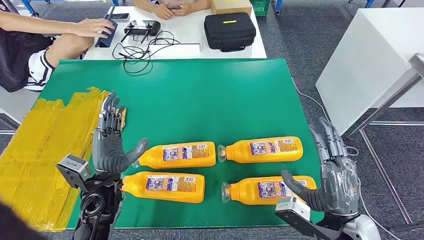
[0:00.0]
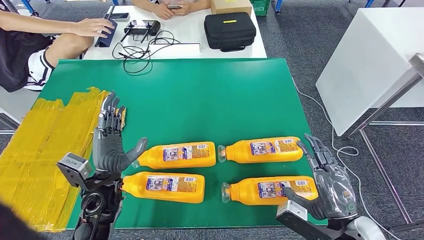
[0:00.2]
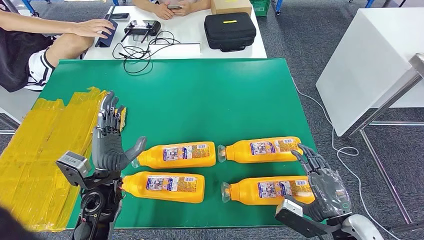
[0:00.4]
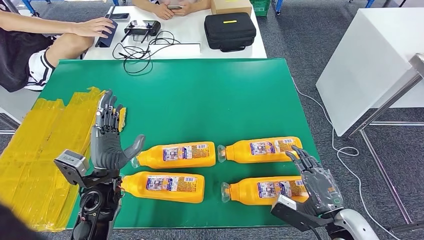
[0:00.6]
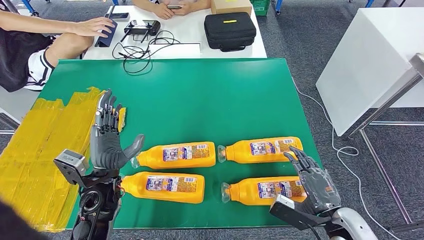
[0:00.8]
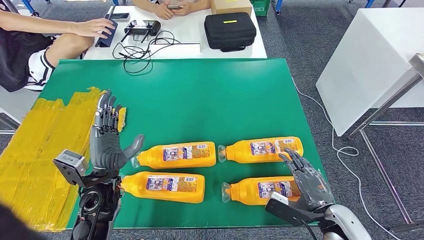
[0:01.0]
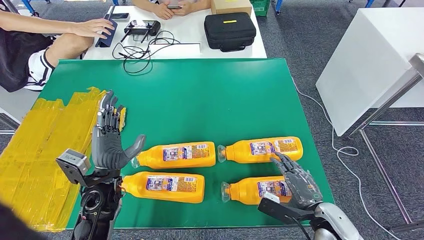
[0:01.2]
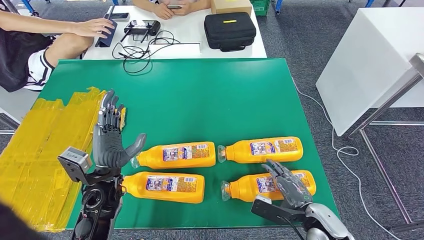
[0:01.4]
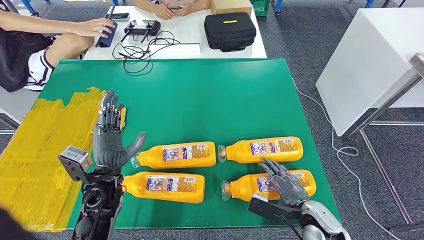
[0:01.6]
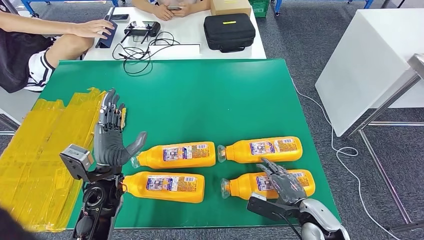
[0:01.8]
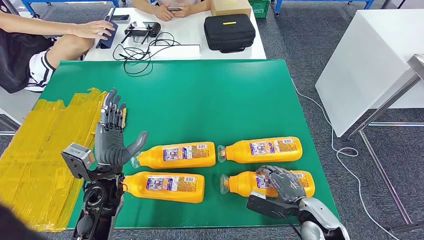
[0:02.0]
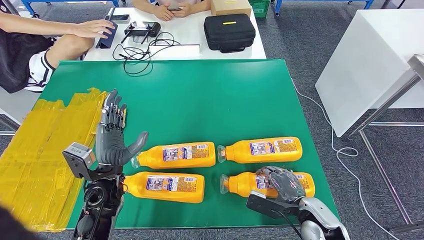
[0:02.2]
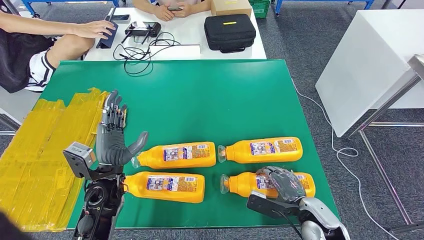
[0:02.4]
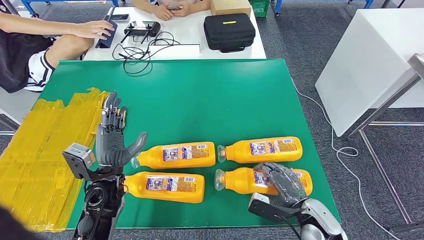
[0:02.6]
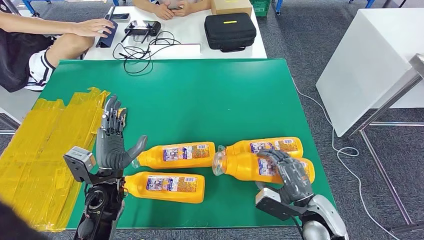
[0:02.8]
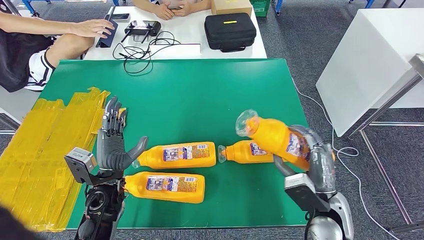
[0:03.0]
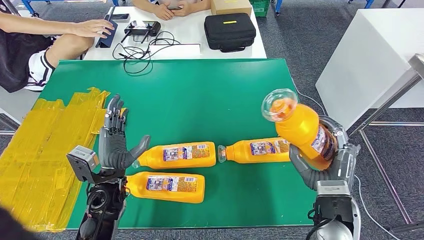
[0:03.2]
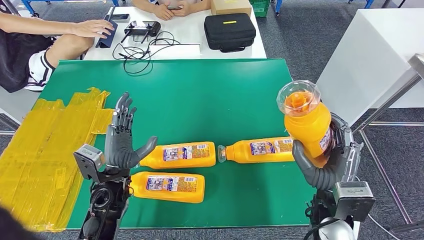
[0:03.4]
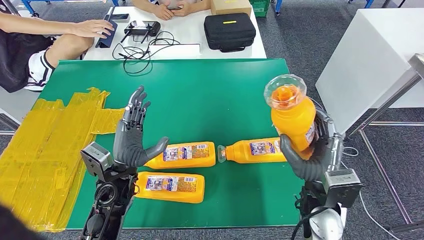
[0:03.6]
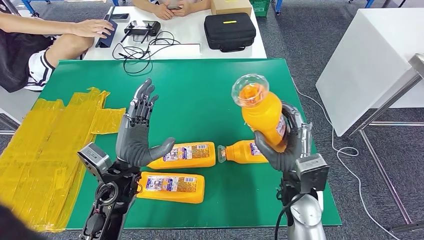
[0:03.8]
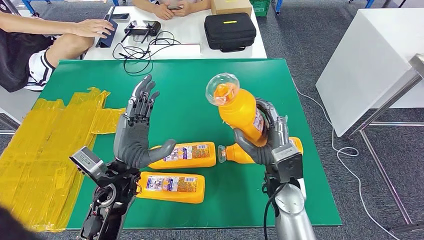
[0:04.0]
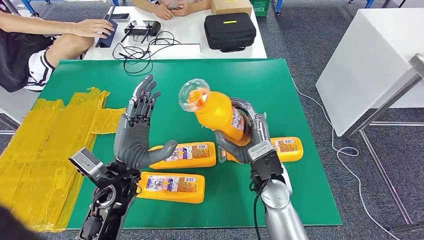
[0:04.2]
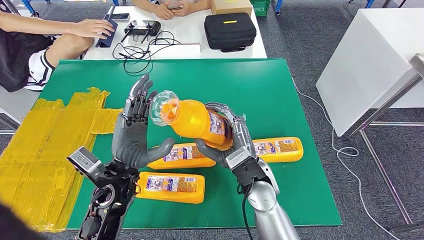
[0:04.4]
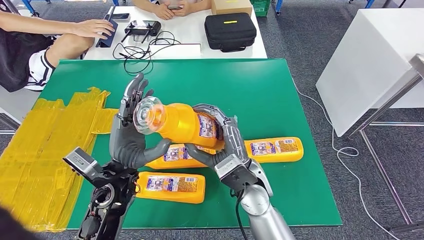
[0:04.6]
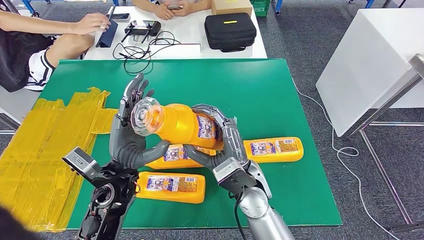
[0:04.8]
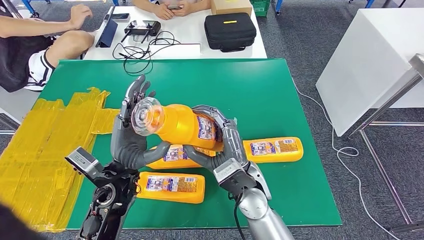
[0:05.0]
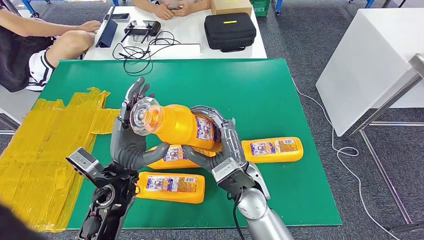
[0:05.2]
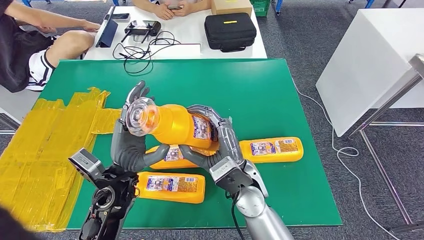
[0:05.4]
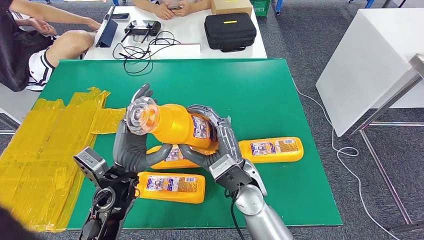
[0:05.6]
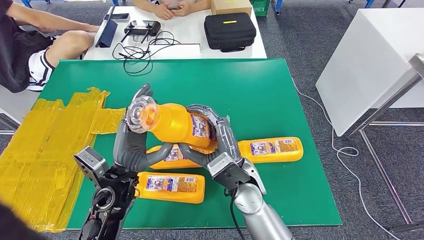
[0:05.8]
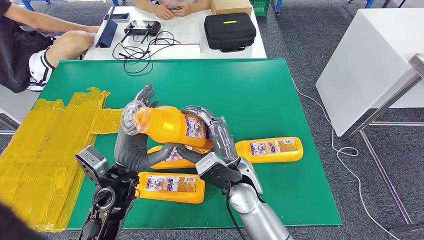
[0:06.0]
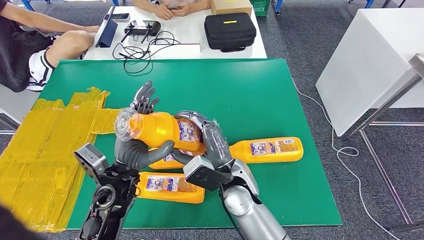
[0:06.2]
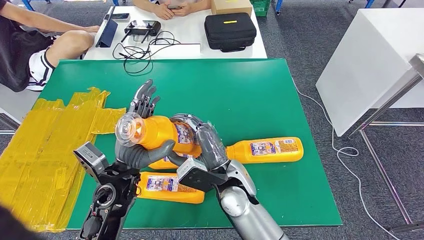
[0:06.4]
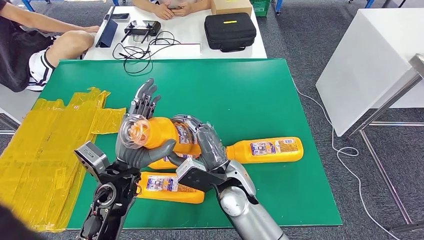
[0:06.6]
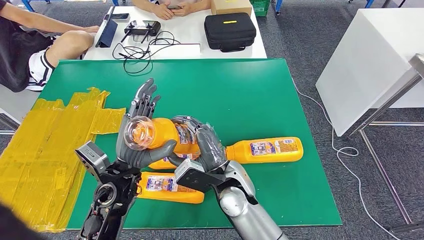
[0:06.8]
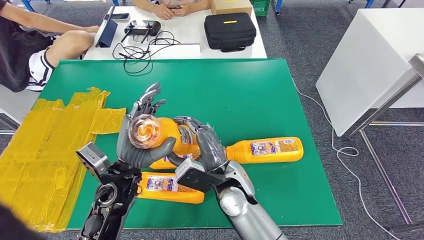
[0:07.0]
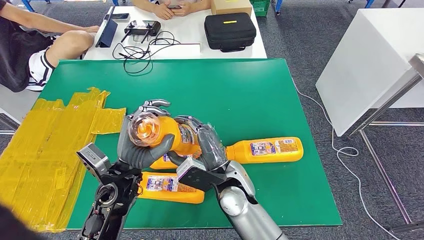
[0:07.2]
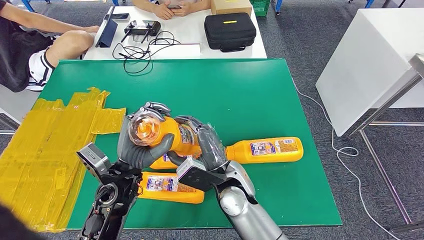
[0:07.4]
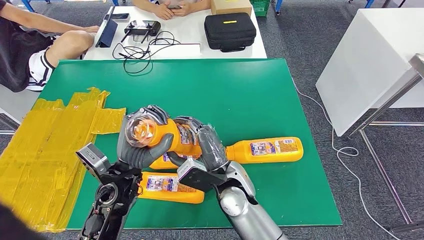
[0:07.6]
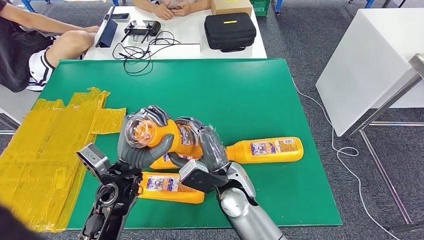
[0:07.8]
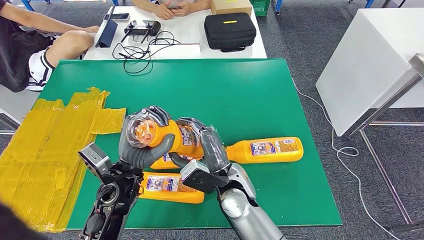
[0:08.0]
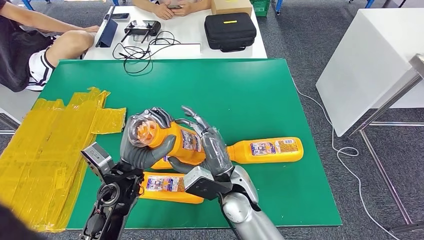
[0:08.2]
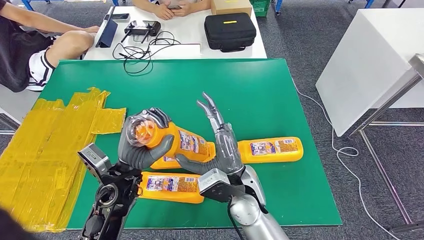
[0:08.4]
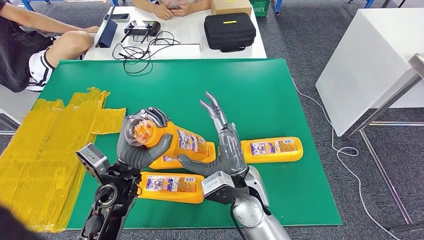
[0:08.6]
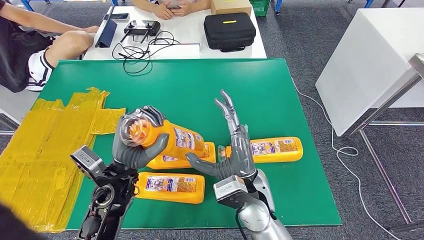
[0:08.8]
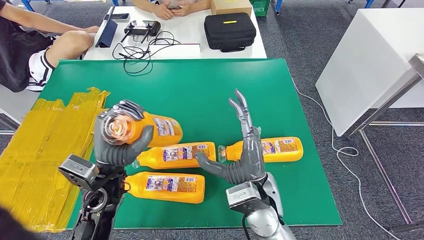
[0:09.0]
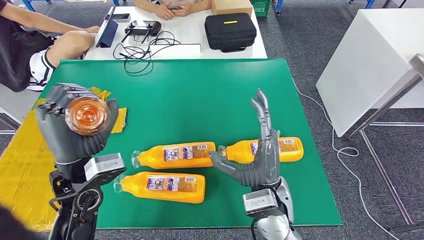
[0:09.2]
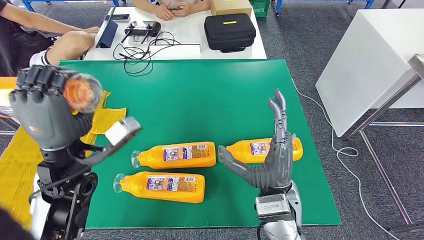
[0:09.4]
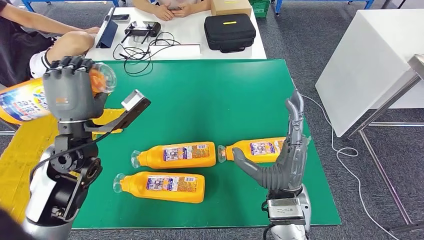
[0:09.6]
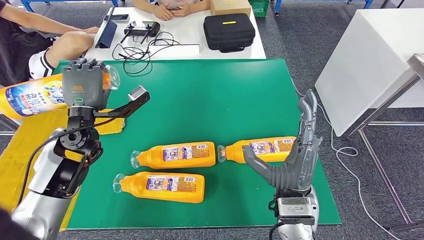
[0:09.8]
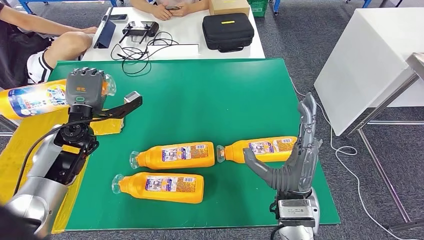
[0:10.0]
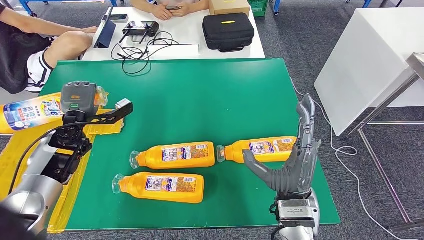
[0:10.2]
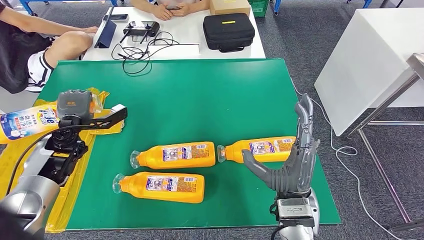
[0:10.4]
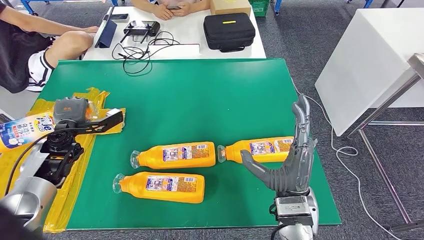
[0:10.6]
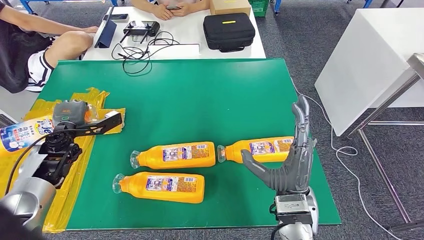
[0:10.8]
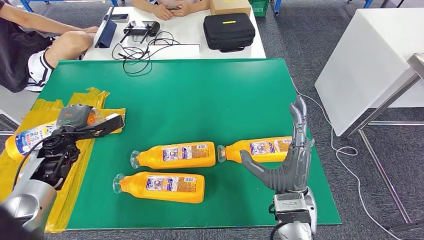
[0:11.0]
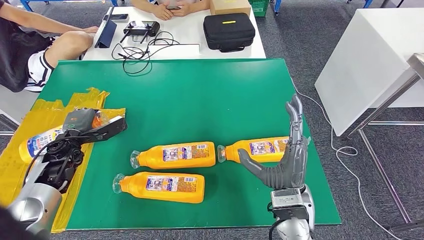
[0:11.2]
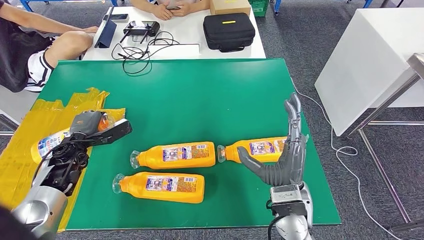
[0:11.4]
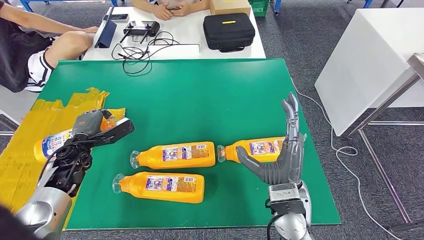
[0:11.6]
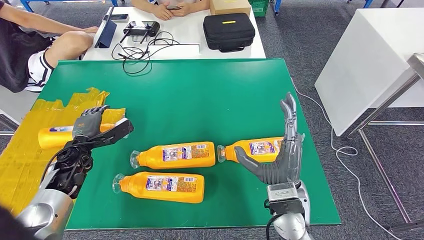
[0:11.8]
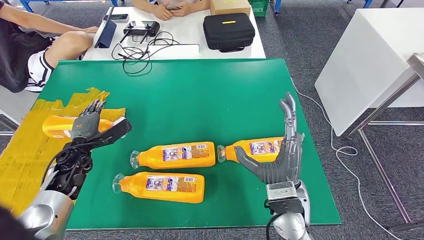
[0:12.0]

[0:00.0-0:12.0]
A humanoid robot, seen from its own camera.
Step, 0:00.0 to 0:04.8: Take the fast-moving consumer goods bottle from the table.
Step, 0:05.0 to 0:11.2: Flip the fast-moving consumer goods bottle to the front side.
0:01.6 to 0:03.0: The right hand shifts roughly 5 cm upward.
0:03.0 to 0:04.4: The left hand shifts about 5 cm upward, while the right hand shifts some 20 cm to the left and forward.
0:04.4 to 0:06.0: The hands move only a little.
0:06.0 to 0:07.6: The hands stay close to where they were, moving slightly.
0:07.6 to 0:09.0: The right hand ends up about 5 cm from where it was.
0:10.4 to 0:12.0: The left hand is displaced downward by about 5 cm.

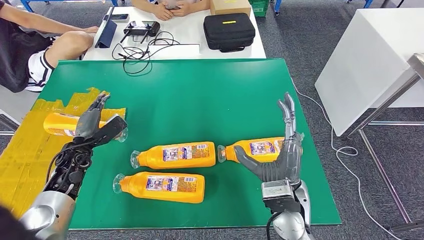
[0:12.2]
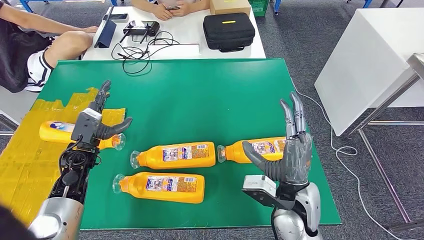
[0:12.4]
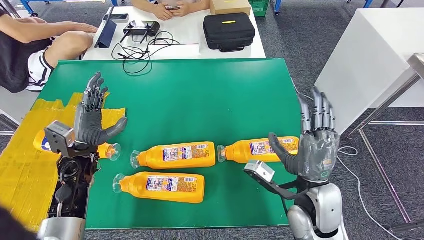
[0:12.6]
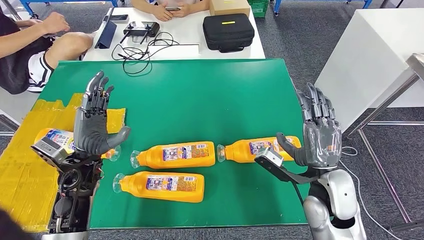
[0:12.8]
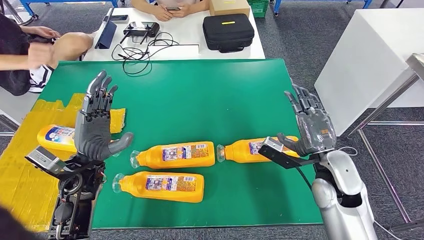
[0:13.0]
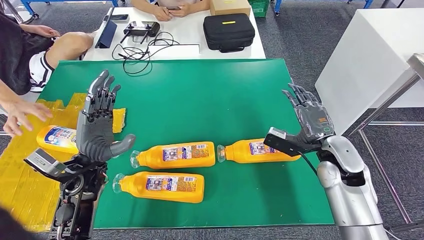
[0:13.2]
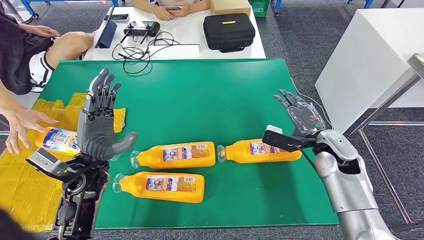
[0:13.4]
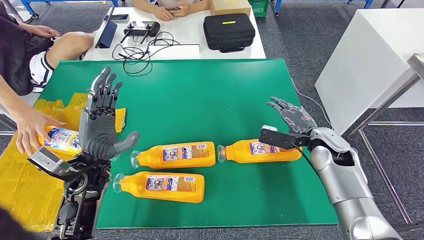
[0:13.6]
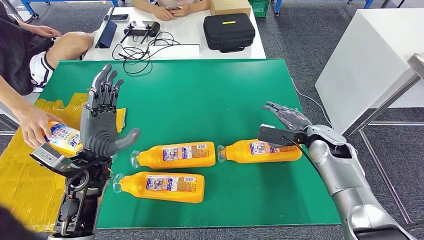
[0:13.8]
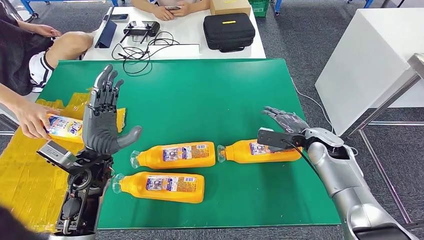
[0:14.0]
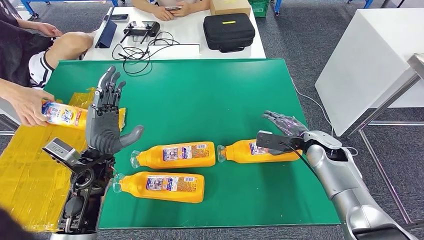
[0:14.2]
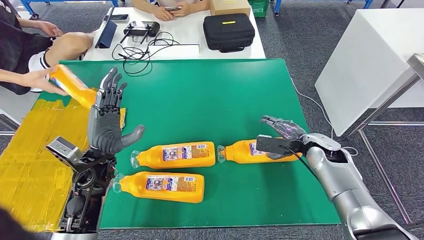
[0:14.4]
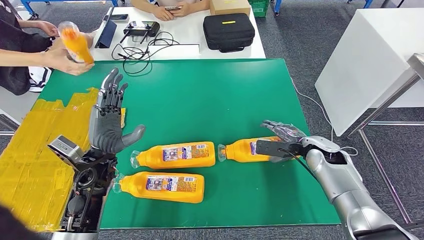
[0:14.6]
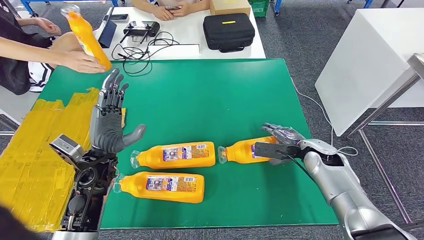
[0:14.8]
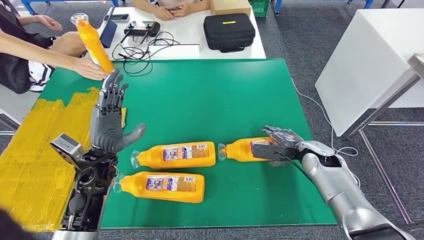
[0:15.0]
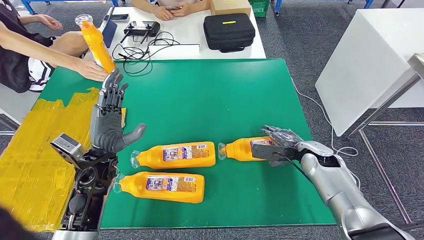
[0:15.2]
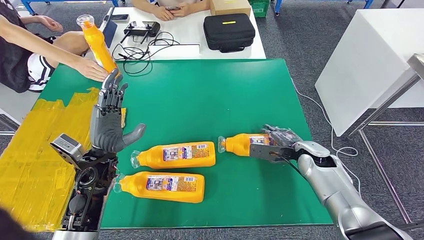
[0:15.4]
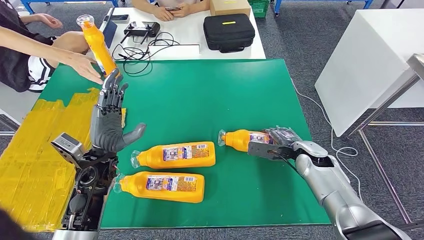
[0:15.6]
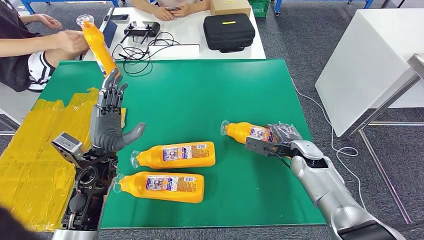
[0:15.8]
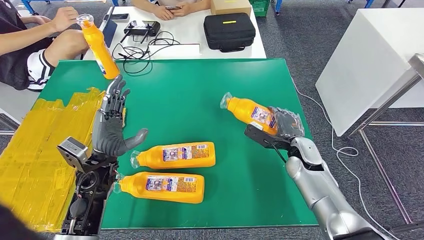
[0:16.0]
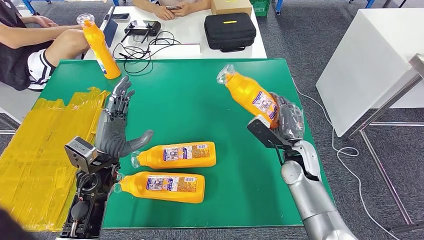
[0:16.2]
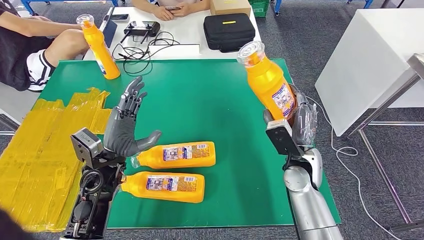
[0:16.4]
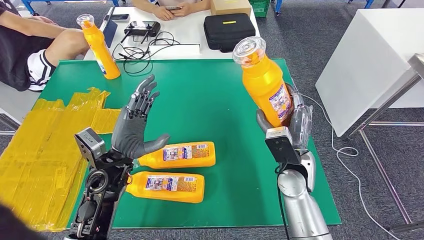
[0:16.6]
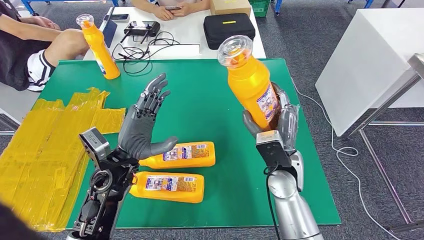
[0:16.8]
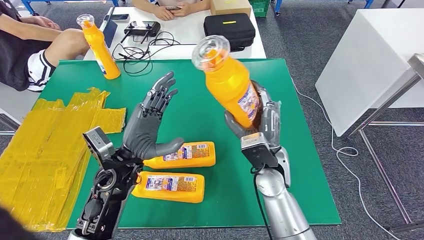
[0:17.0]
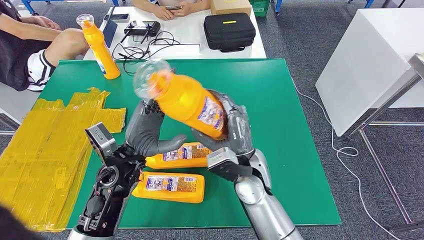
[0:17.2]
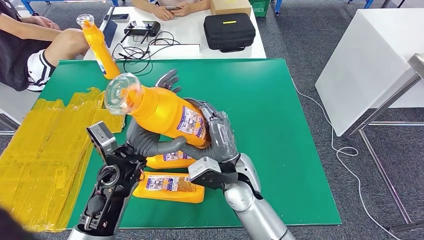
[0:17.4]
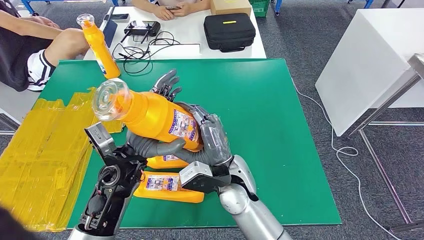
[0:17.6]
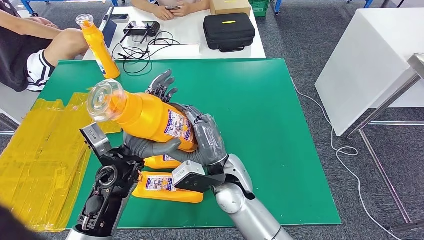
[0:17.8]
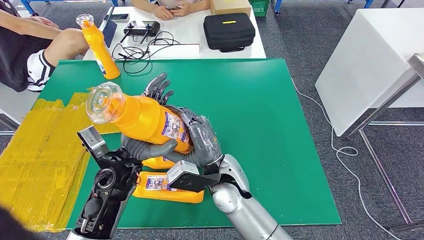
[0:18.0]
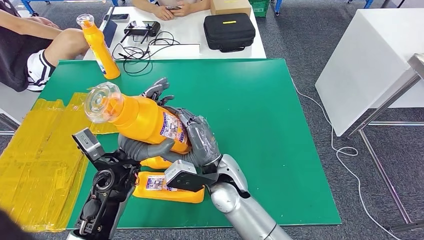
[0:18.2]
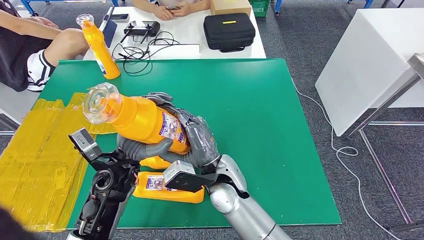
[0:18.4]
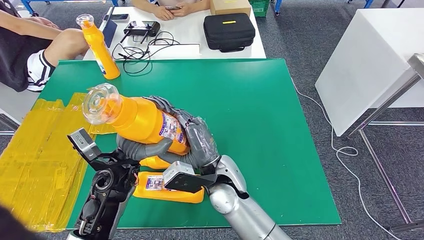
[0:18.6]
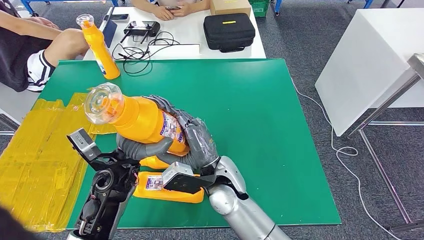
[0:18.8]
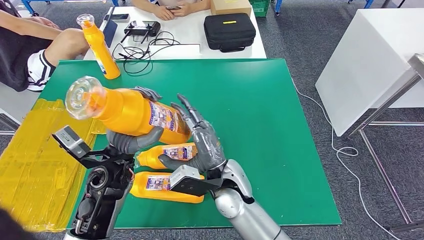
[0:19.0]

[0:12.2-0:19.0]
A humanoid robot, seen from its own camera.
Step, 0:12.2 to 0:18.4: Pick up the fast-moving consumer goods bottle from the table.
0:13.6 to 0:15.0: The right hand changes place by roughly 5 cm.
0:17.6 to 0:19.0: There are only small adjustments of the hands.
